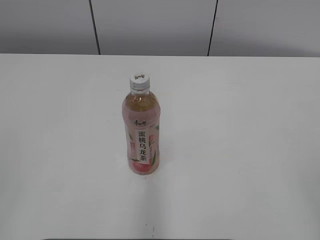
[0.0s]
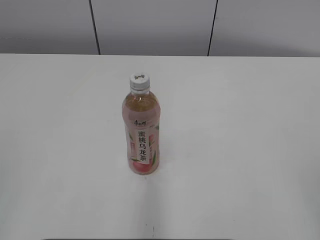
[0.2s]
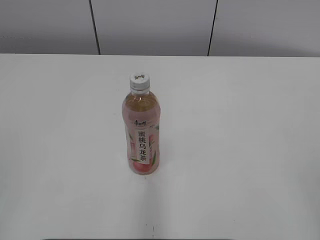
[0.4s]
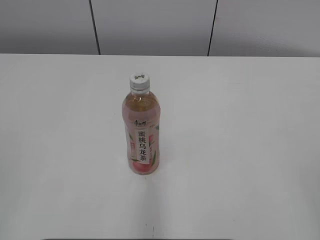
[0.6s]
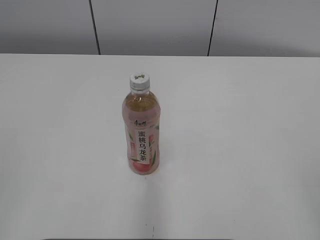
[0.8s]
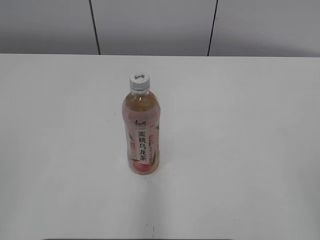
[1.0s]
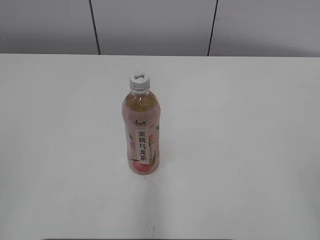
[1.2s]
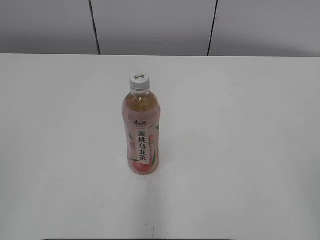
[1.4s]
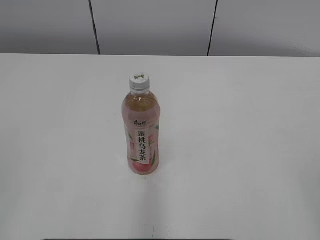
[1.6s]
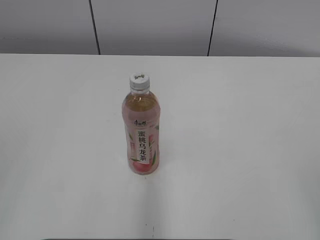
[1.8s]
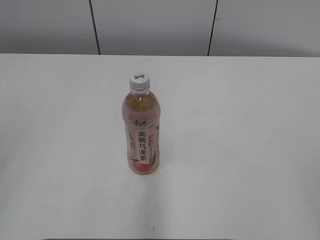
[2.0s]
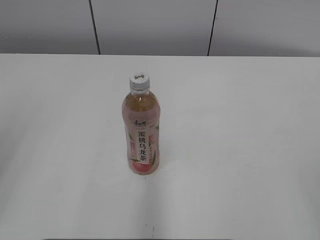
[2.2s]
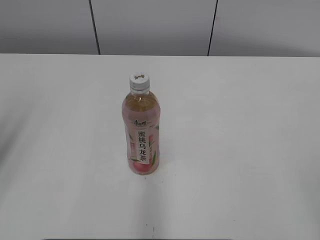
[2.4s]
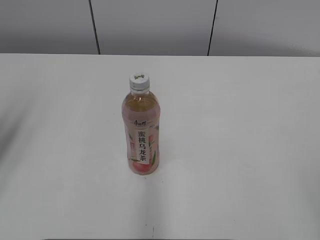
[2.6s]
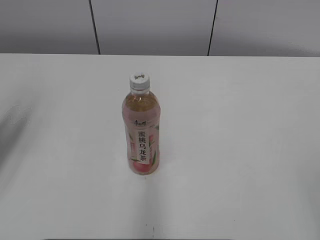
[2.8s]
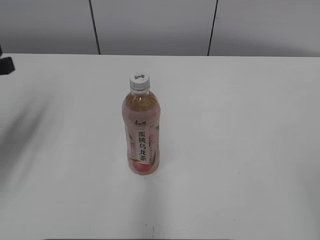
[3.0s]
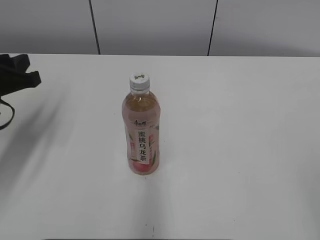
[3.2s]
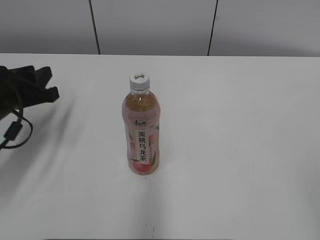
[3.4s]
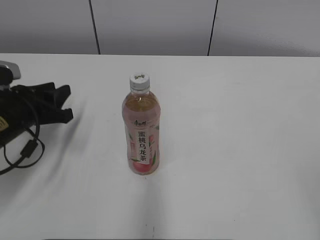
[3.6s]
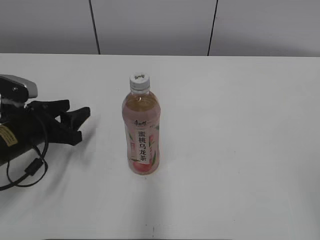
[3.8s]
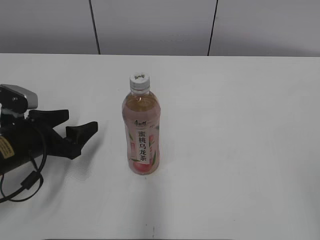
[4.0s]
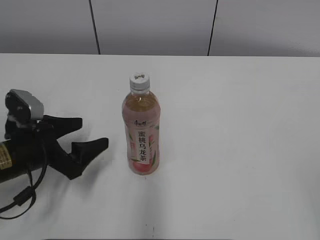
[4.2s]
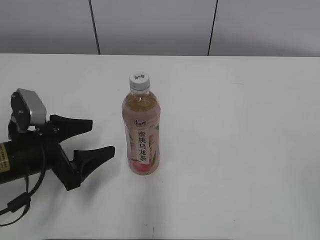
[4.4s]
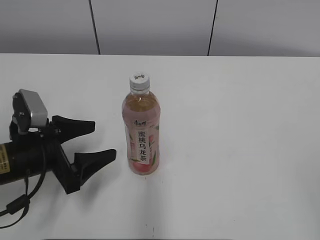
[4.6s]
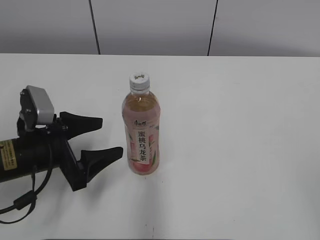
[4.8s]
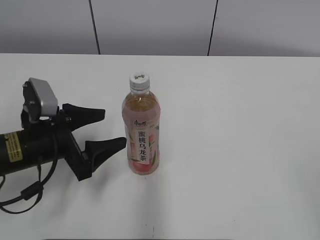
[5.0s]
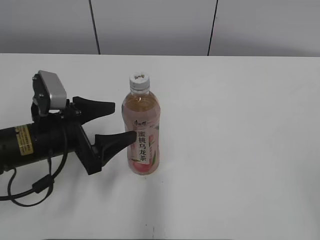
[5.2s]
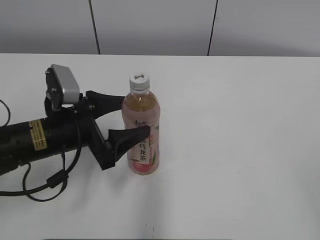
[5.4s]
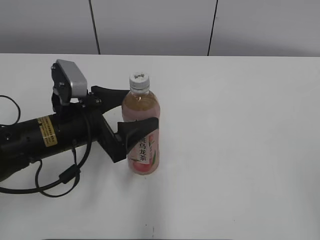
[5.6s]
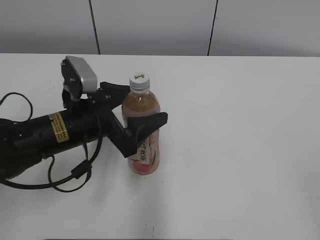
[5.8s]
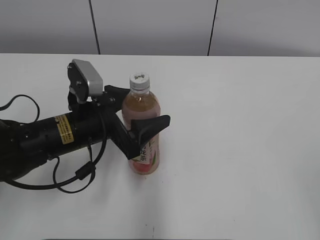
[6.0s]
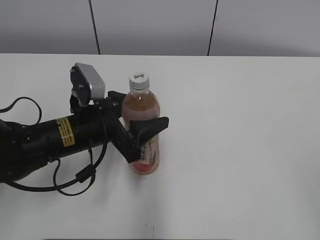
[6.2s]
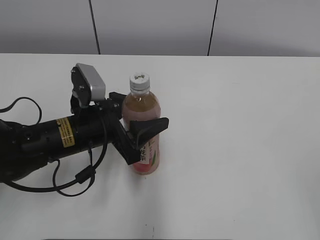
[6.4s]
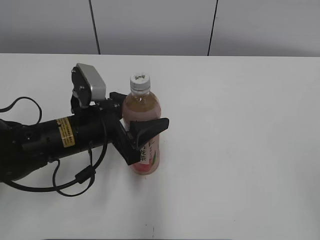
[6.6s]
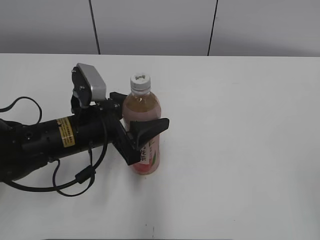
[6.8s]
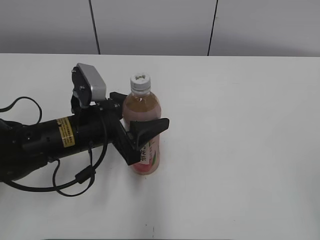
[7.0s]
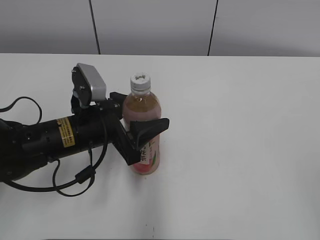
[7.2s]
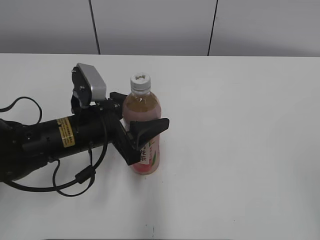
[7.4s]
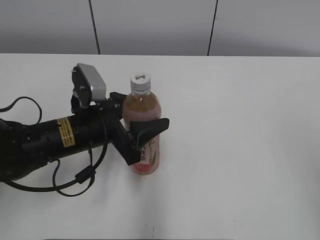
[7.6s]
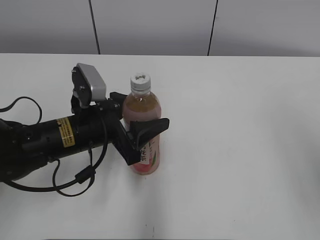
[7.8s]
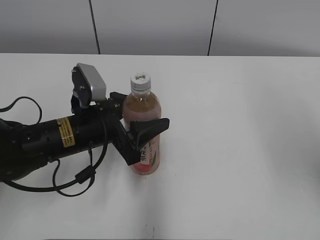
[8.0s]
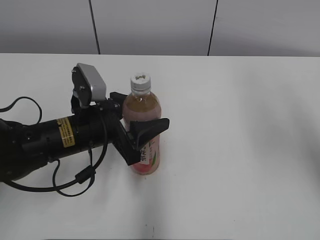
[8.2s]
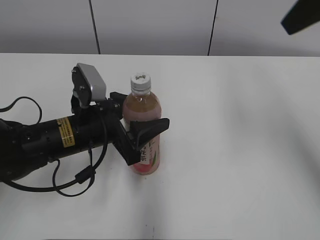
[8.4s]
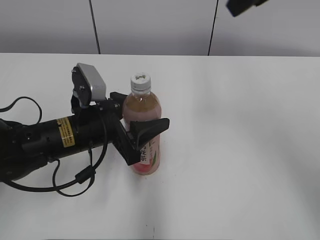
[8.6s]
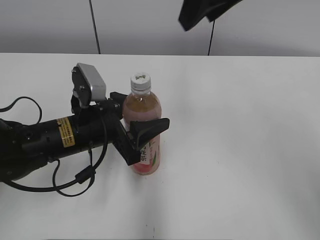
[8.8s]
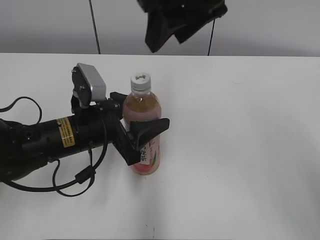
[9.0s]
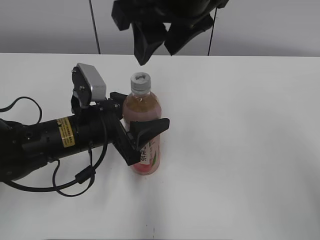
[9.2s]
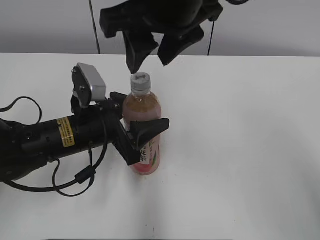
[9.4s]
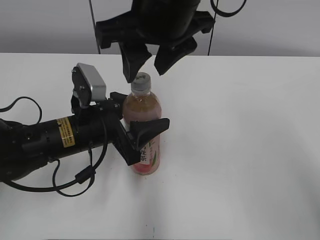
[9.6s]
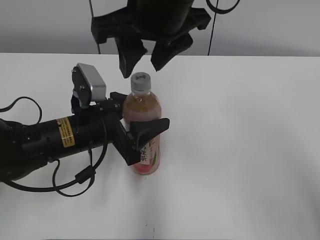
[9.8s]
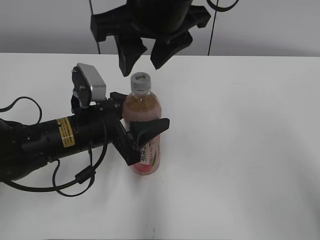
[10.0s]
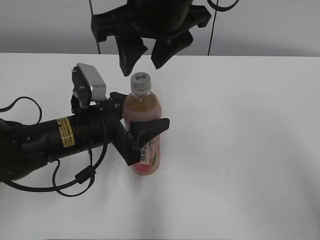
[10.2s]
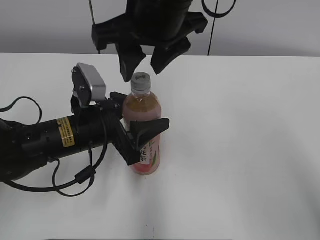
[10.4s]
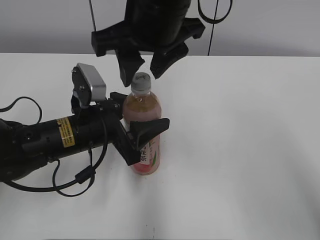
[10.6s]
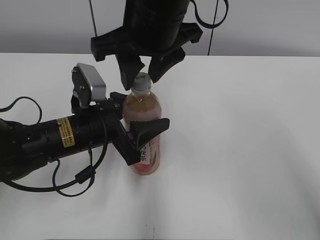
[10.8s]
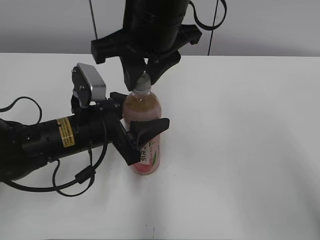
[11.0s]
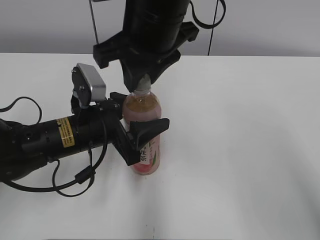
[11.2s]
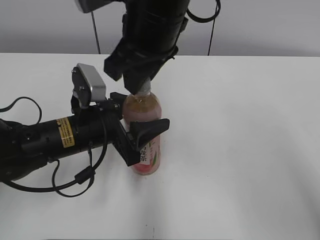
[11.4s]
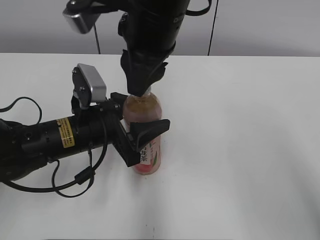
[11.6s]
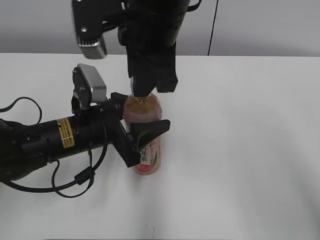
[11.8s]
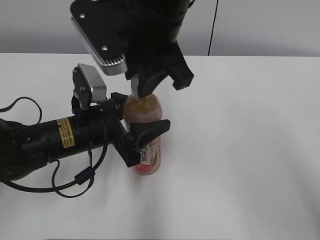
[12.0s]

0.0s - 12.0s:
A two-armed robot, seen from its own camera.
Step, 0.0s - 8.8s: Grab the Peach Oolong Tea with the left hand.
1.6s - 3.0s: The left gripper is displaced forward by about 25 cm.
3.0s - 4.4s: The left gripper goes some 15 cm downward and to the right, and opens.
4.4s - 6.0s: The left gripper moves to the right, about 10 cm.
6.0s - 7.6s: The left gripper closes up. Meanwhile the right gripper ends up some 5 cm from where it was.
7.6s - 9.0s: The right gripper shifts roughly 35 cm forward and to the left.
9.0s - 10.4s: The right gripper heads to the left, covering approximately 5 cm.
10.4s - 12.0s: The right gripper closes.

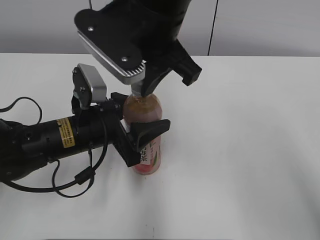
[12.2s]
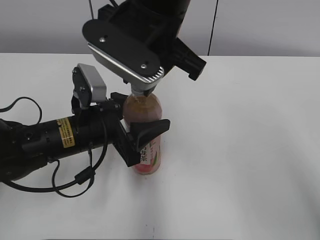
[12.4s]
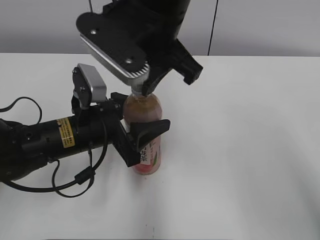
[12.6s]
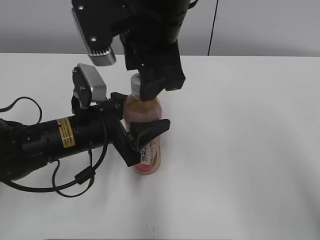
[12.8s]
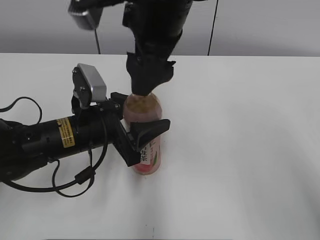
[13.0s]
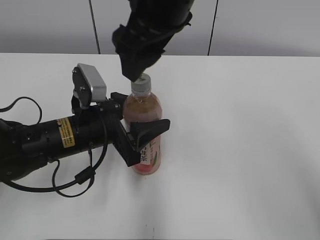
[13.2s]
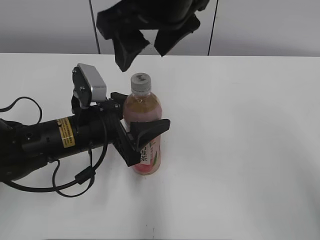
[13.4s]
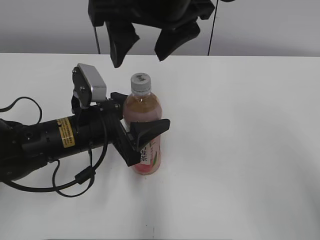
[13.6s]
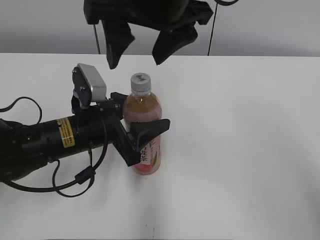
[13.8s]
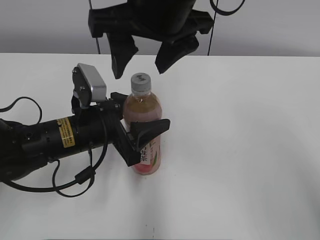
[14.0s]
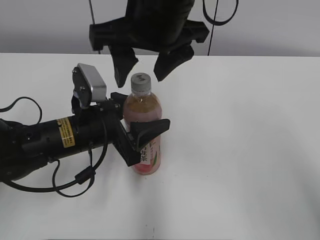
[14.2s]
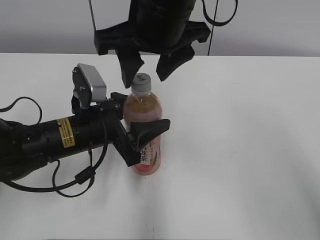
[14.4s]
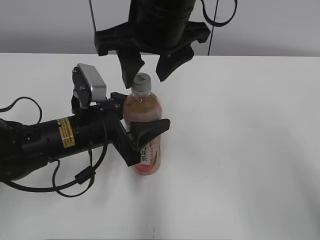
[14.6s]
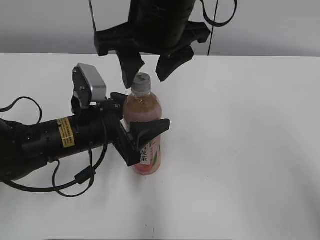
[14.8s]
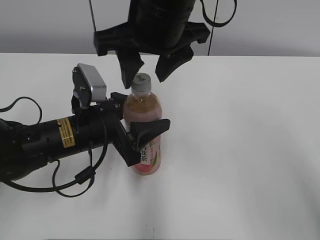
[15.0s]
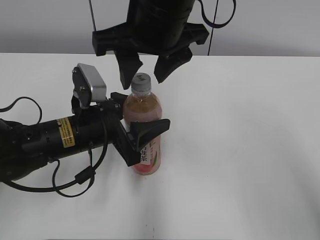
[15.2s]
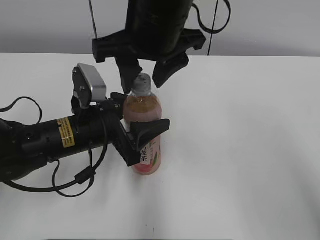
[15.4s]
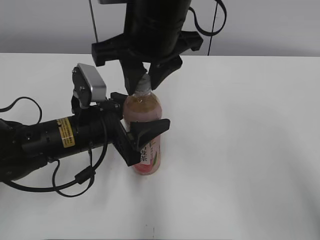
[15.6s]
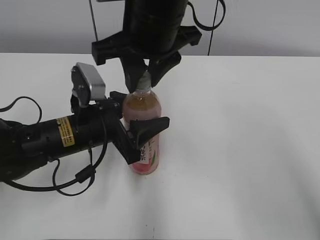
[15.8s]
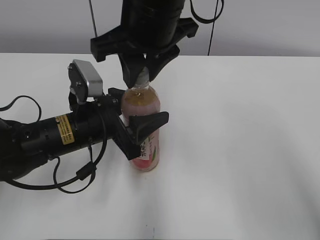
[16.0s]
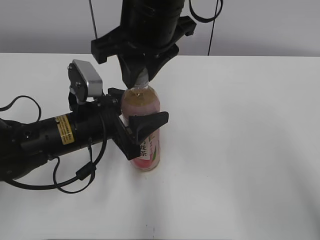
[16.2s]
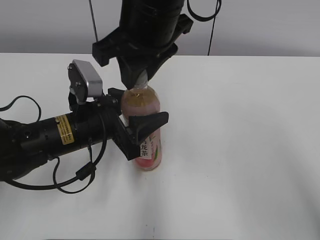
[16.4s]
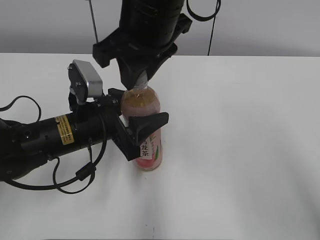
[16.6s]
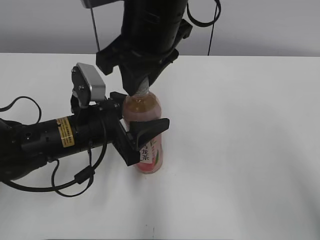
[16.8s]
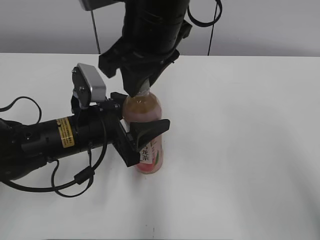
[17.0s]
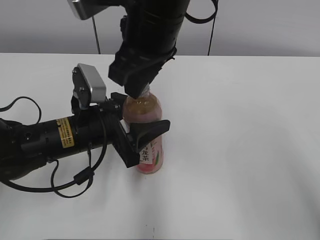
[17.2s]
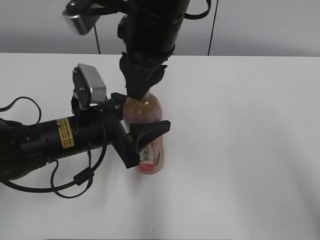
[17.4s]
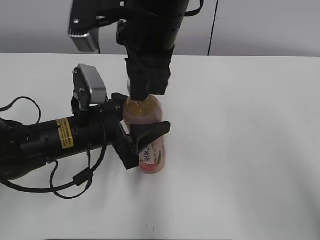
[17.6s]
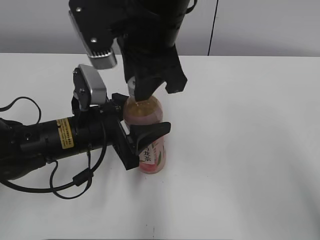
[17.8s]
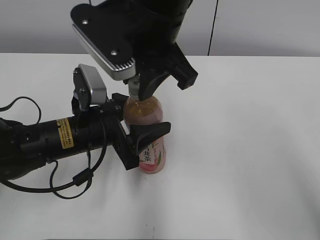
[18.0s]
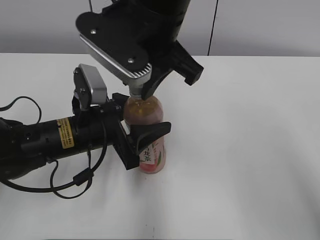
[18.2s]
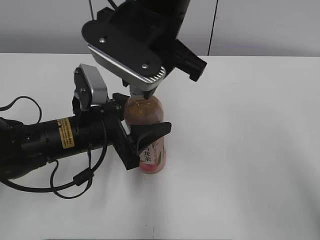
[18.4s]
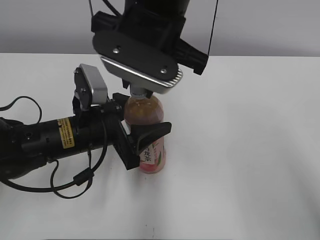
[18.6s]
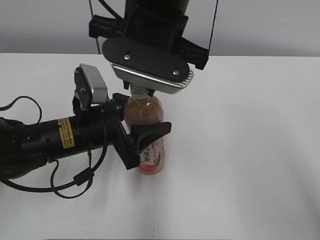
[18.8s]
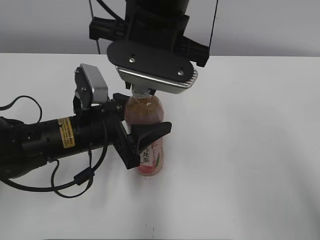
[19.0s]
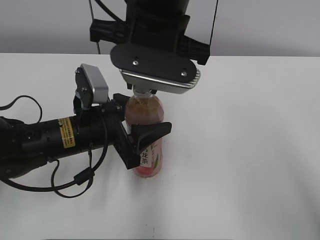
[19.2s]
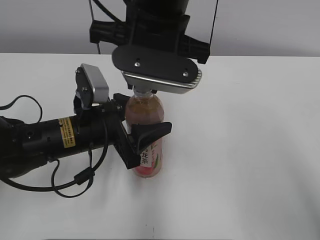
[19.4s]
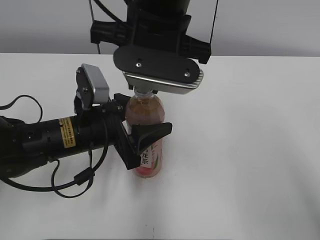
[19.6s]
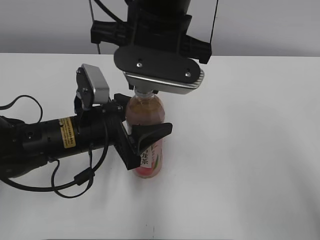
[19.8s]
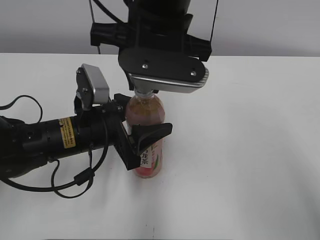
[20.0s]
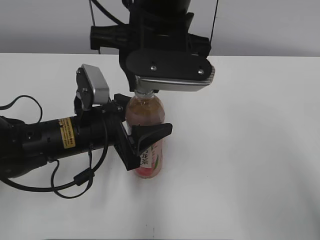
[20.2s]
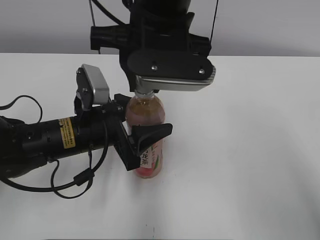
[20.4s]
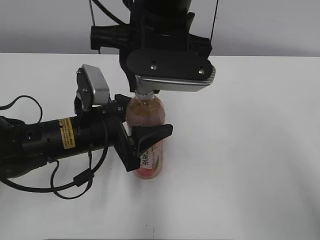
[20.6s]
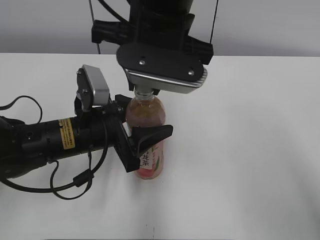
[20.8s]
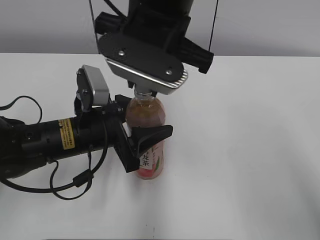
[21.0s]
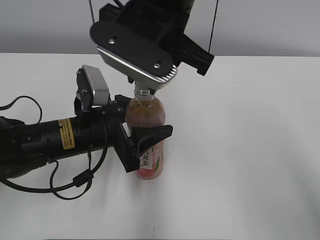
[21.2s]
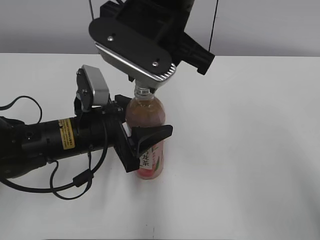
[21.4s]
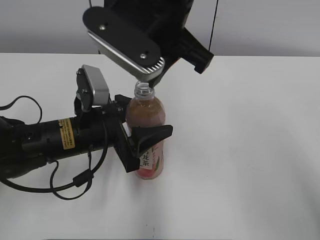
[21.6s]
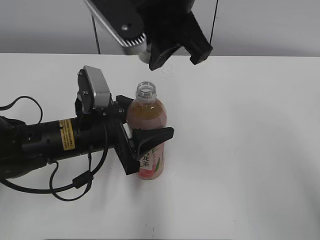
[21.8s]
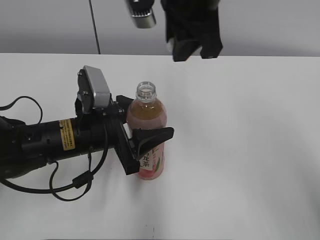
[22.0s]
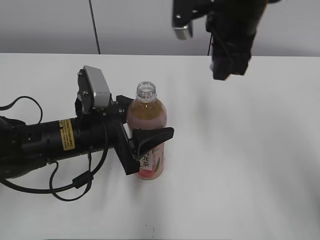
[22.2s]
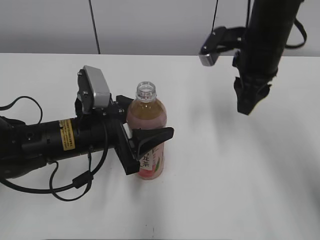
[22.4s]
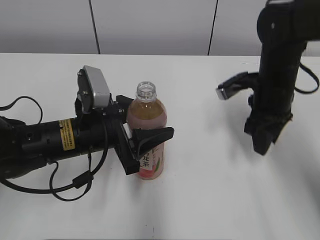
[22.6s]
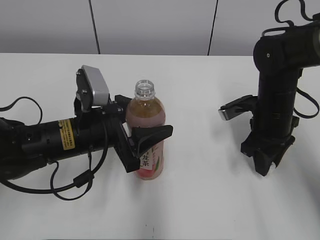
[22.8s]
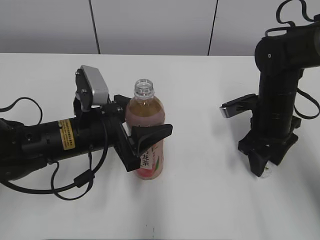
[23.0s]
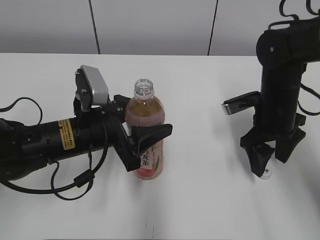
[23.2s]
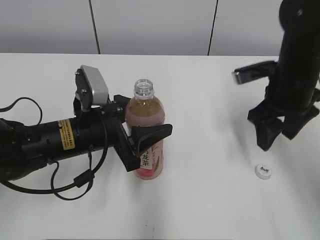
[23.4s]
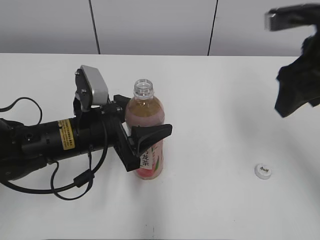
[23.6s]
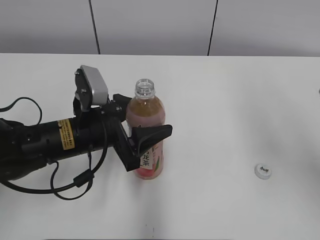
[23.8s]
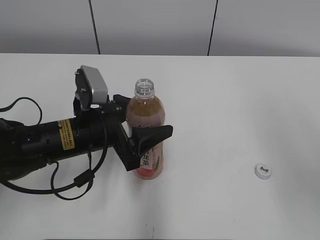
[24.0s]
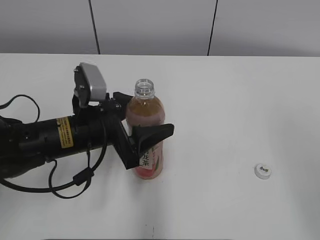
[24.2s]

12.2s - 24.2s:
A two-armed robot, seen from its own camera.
Step, 22.2s - 23.4s: Place the bottle cap on the right.
12.2s - 13.8s: The right gripper opens up.
13.8s - 15.2s: The grippers stay close to where they were, moving slightly.
15.2s - 16.6s: The right gripper closes.
21.2s - 22.6s: The right gripper travels to the right and downward by roughly 25 cm.
22.6s - 24.2s: The right gripper shifts some 35 cm backward and upward, and opens.
